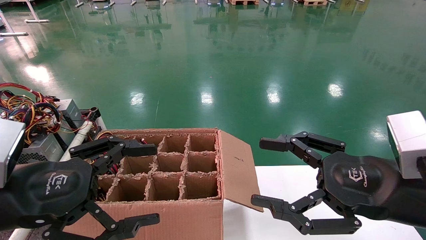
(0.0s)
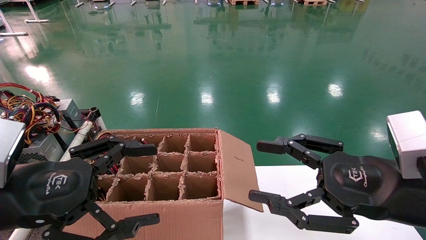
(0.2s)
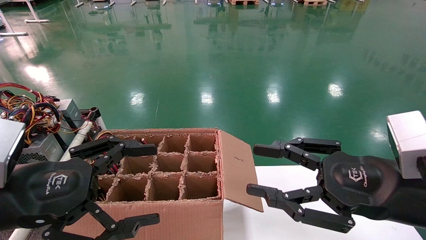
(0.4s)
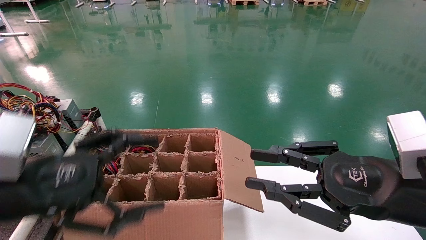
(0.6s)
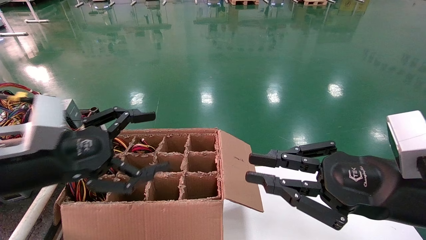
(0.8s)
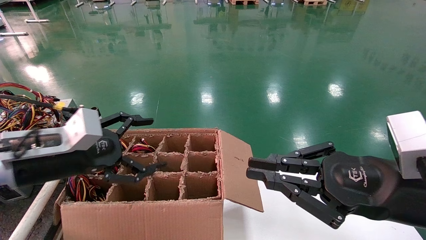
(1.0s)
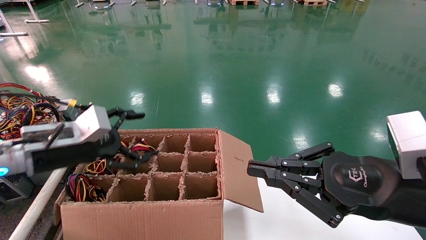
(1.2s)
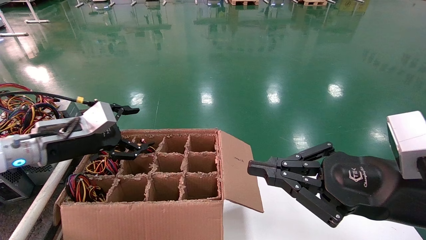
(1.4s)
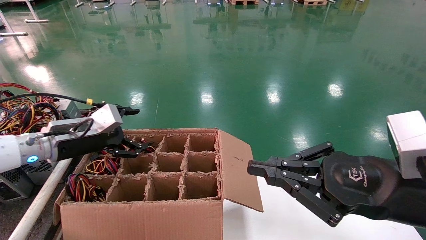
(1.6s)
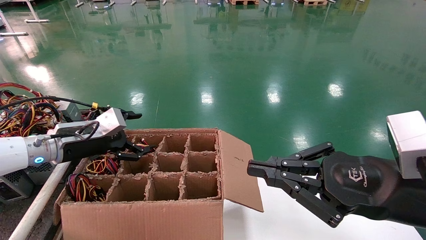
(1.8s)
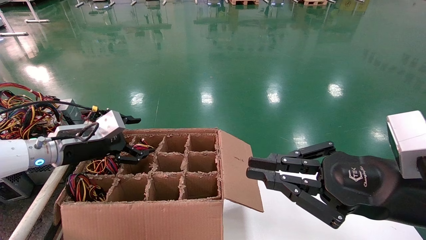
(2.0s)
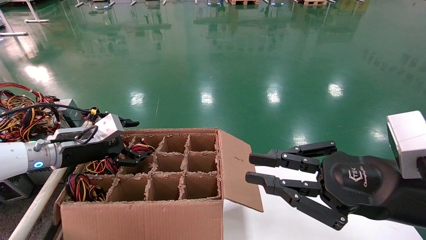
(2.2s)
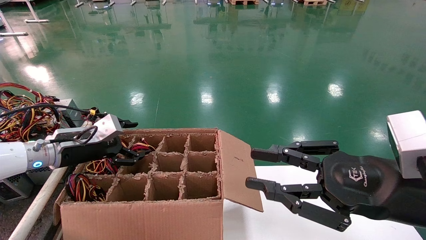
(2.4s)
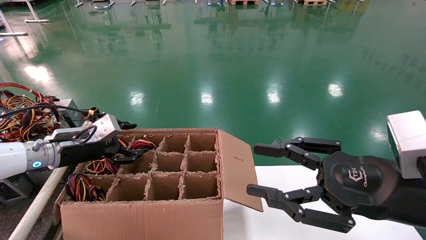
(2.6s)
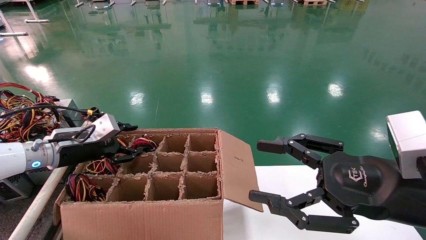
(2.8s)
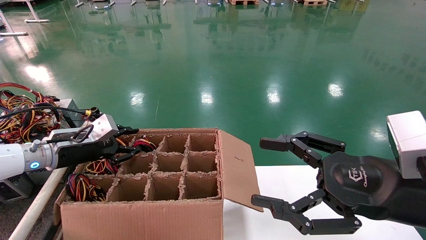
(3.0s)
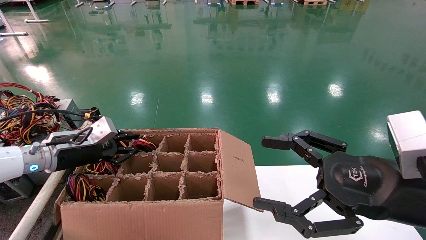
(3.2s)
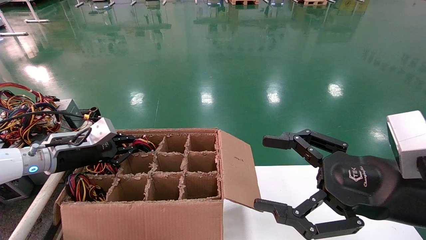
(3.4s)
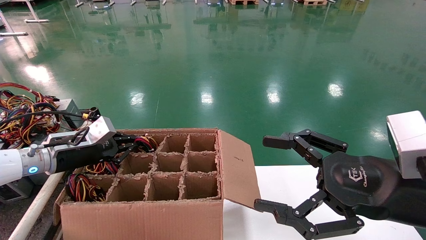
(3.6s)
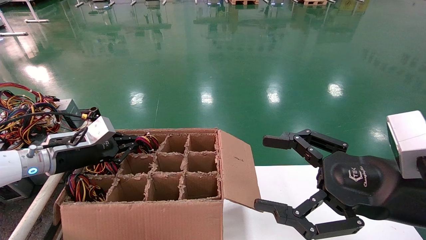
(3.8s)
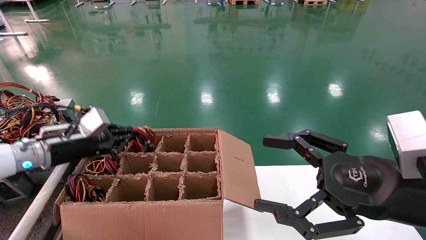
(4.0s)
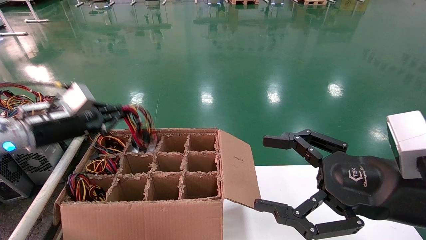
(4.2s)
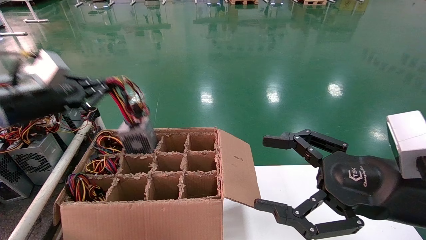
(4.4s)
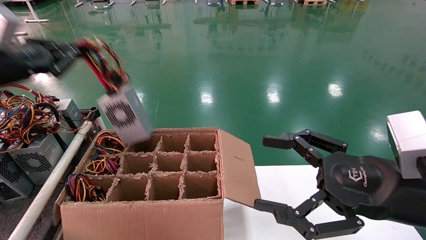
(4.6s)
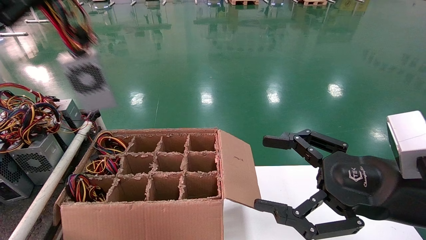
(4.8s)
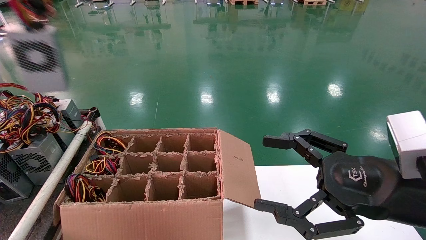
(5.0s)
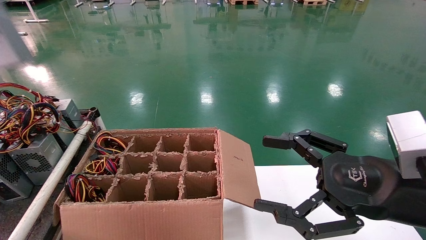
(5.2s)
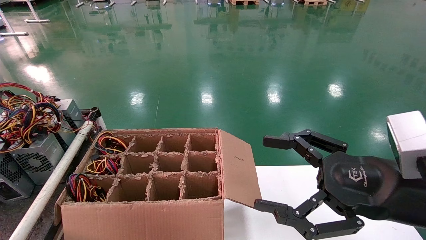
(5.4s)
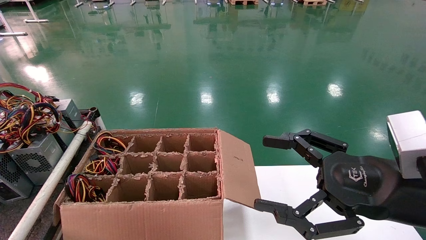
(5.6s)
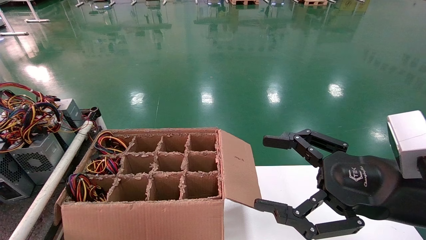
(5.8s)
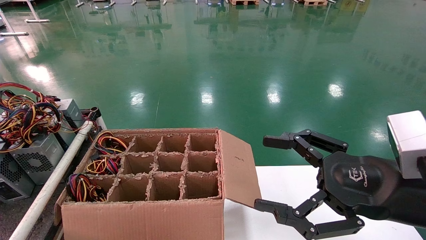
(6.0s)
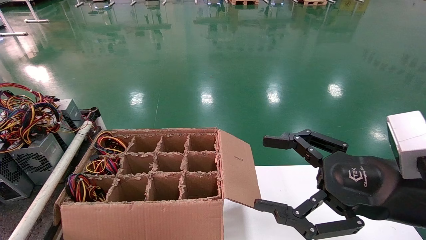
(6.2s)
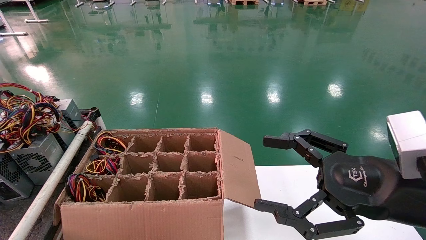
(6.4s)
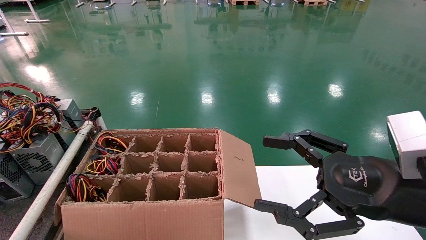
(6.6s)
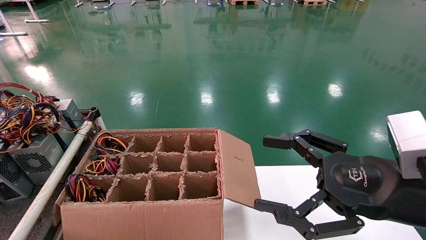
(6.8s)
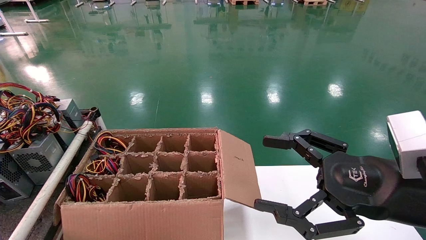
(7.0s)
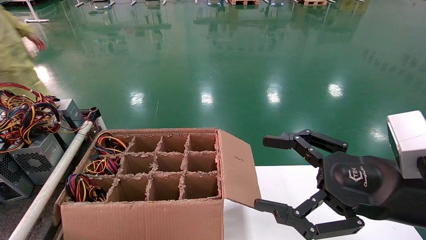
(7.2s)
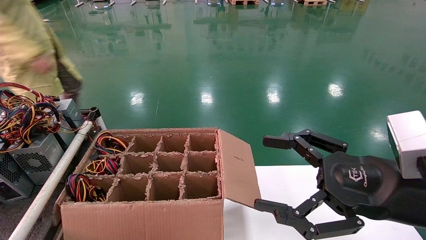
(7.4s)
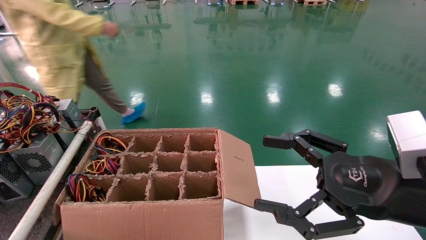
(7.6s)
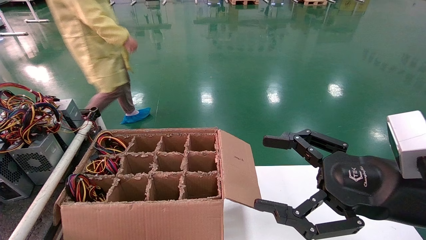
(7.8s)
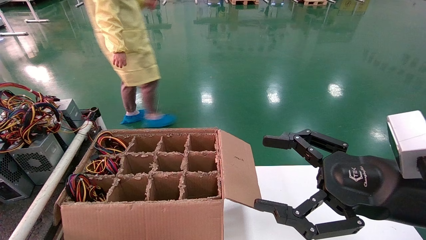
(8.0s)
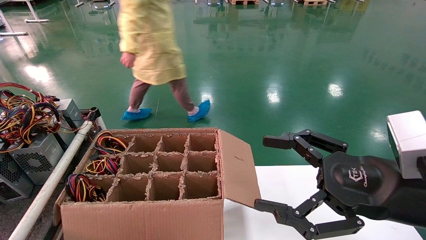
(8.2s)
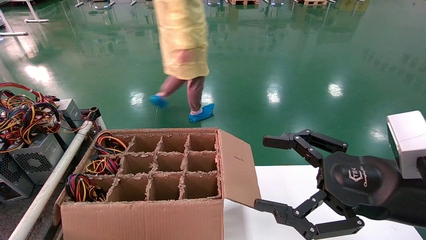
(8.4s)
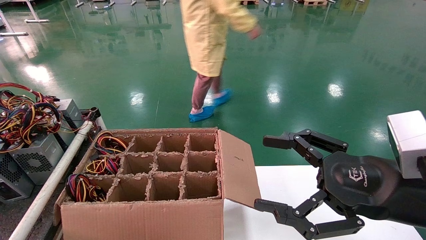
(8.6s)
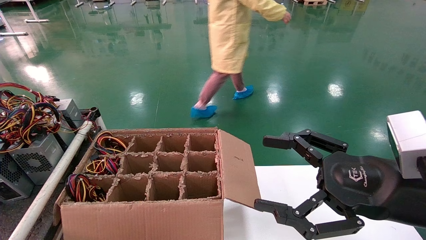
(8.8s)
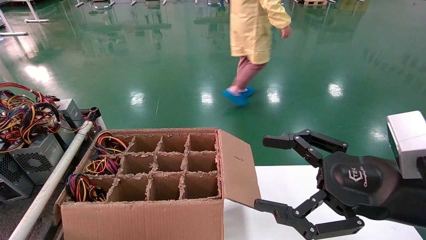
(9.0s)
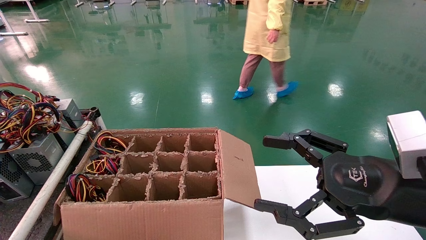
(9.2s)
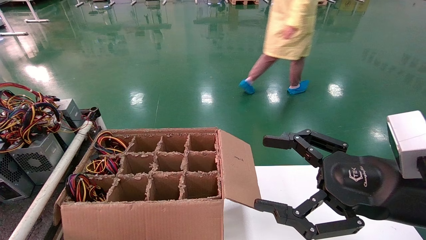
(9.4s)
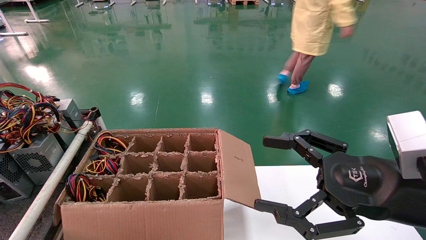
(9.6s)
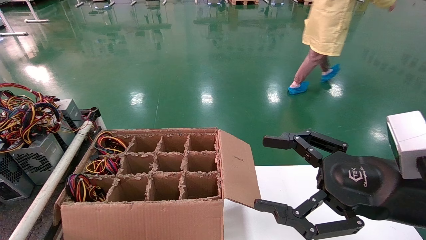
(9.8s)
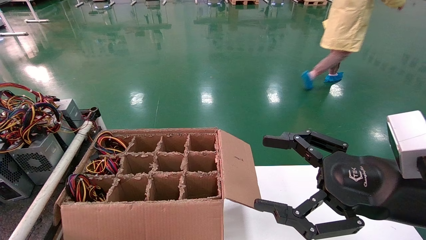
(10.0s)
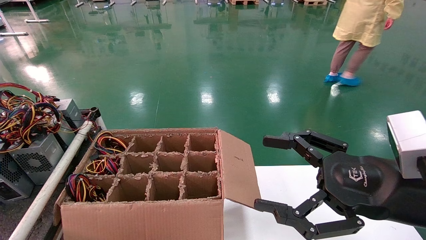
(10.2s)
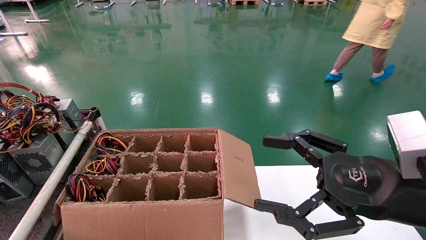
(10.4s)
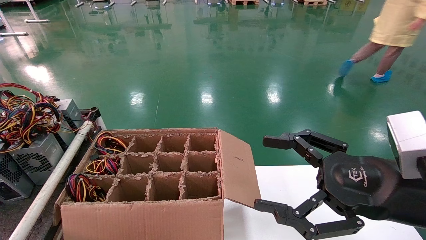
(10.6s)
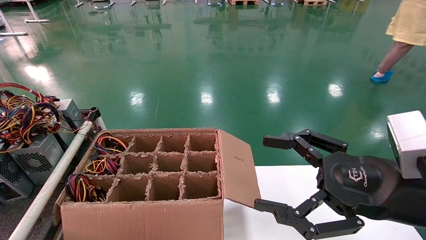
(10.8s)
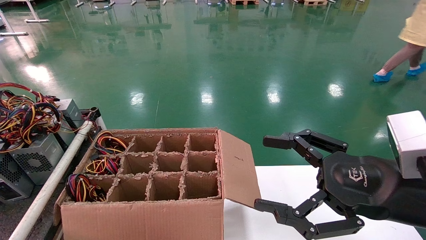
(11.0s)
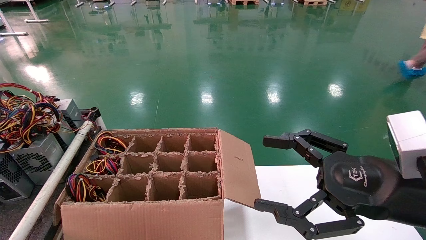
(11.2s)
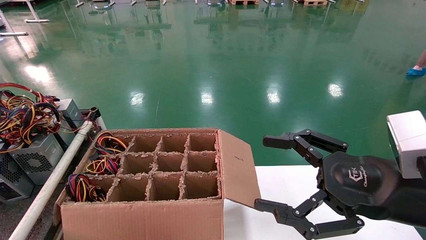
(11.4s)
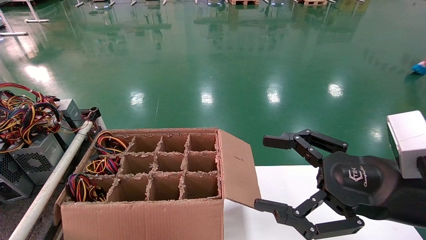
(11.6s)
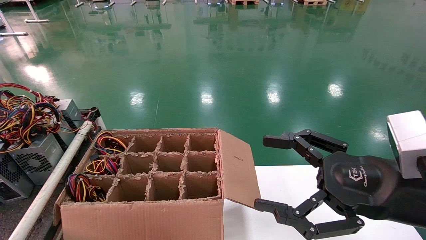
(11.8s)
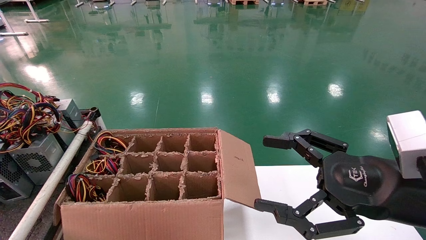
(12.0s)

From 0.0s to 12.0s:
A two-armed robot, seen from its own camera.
Step, from 0.8s to 3.6s: Grab and lift the power supply from the large box.
Step, from 3.8s to 10.4s: Place the power supply on the operating table.
From 0.0s to 1.6s: The right gripper closes up, while the left gripper moves forward, roughly 20 cm.
From 1.6s to 3.0s: The left gripper moves roughly 5 cm, and closes up. The right gripper opens up.
From 3.0s to 4.4s: The left gripper goes some 15 cm upward and to the left, and closes its fingers.
From 4.4s to 6.0s: The left gripper goes approximately 40 cm to the left, backward and upward.
From 6.0s to 7.6s: The left gripper is displaced downward and forward by roughly 15 cm.
From 7.6s to 10.4s: The grippers stay close to where they were, moving slightly.

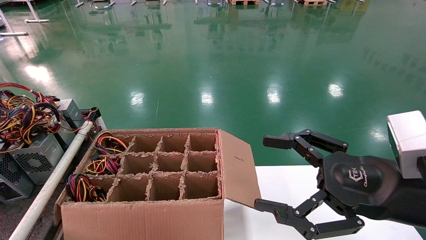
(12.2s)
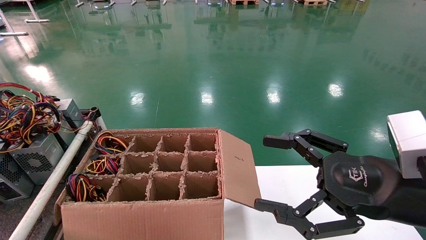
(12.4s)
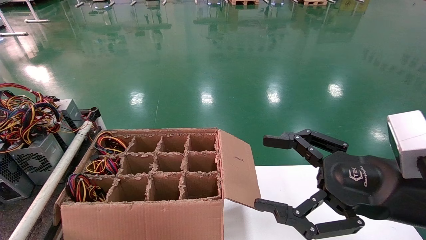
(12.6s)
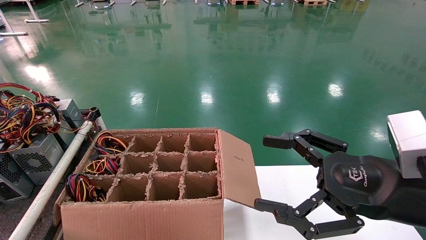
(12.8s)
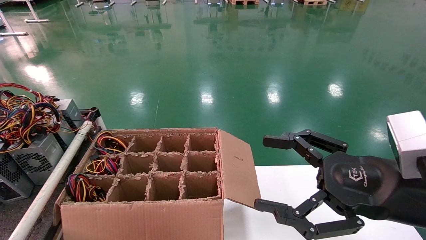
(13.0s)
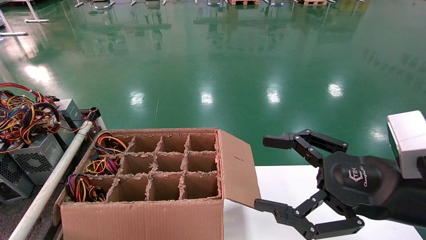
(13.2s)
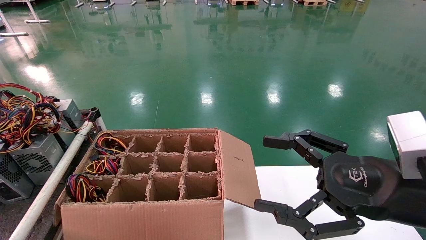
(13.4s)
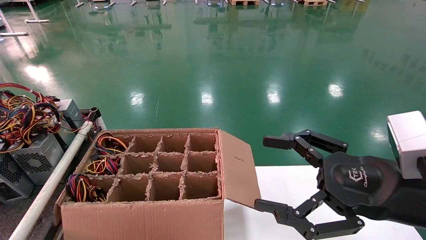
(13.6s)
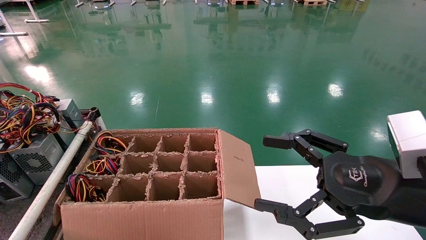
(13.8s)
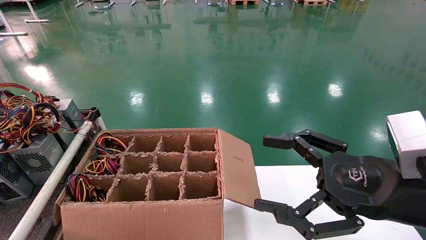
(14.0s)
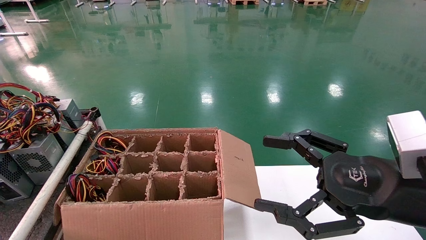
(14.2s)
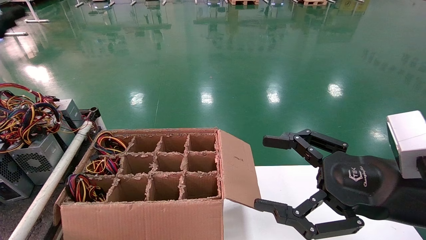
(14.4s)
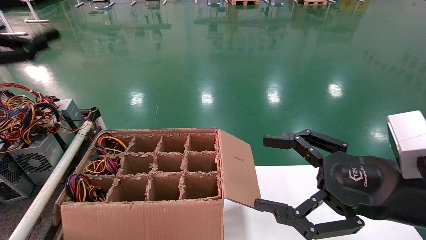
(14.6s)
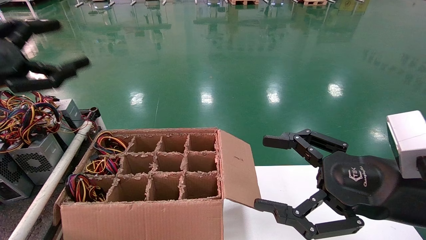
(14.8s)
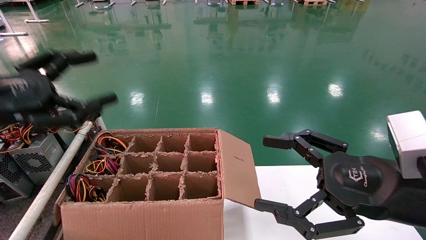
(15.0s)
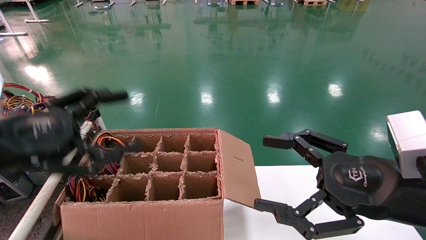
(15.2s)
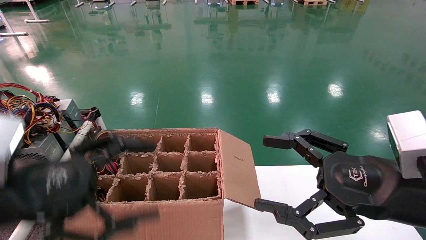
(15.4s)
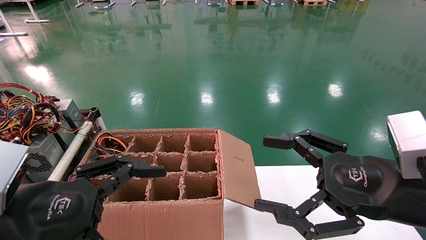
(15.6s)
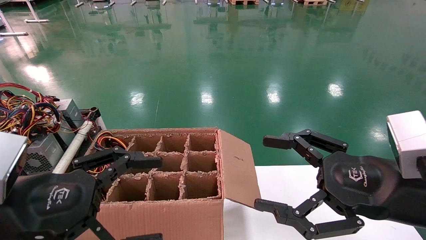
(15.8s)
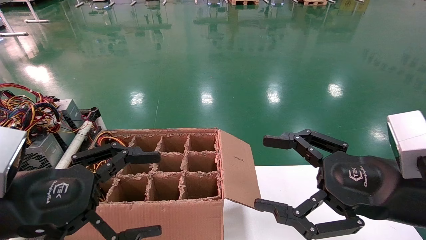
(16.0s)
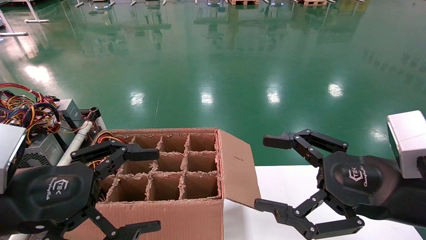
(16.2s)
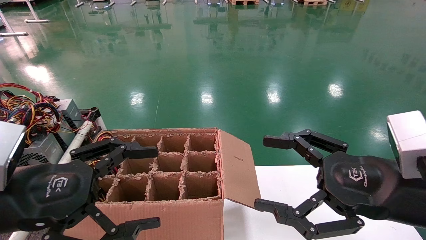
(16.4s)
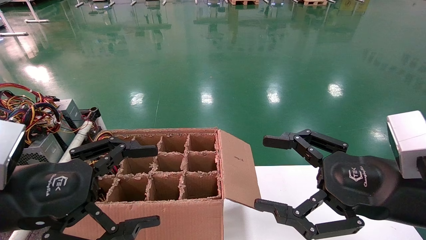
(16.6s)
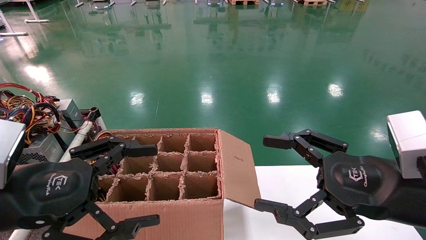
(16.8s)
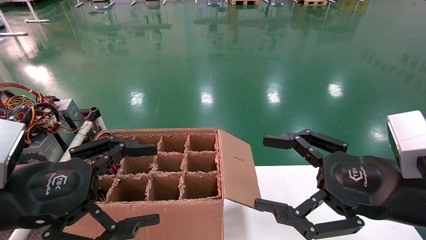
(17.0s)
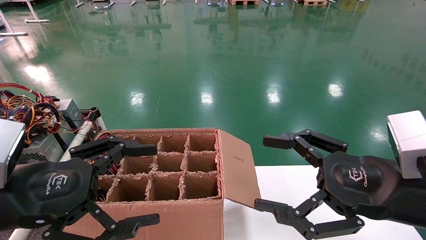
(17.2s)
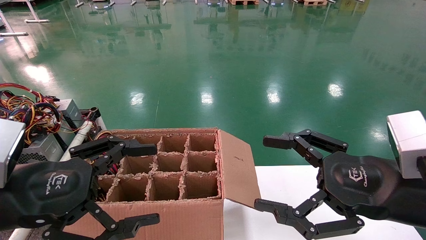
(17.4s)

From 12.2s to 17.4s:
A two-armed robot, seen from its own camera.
From 14.0s to 15.6s: The left gripper heads to the right and downward, covering some 35 cm.
From 15.6s to 17.4s: Both grippers stay put.
